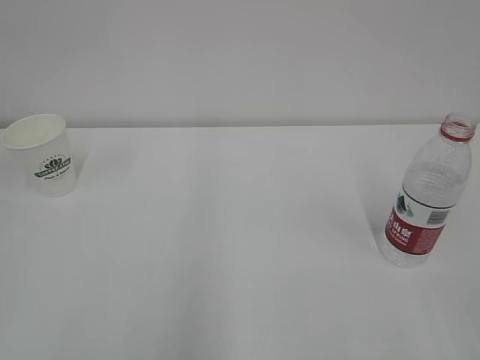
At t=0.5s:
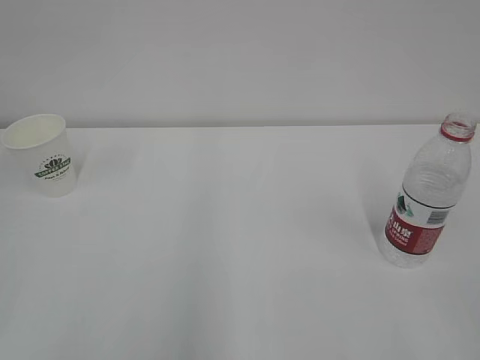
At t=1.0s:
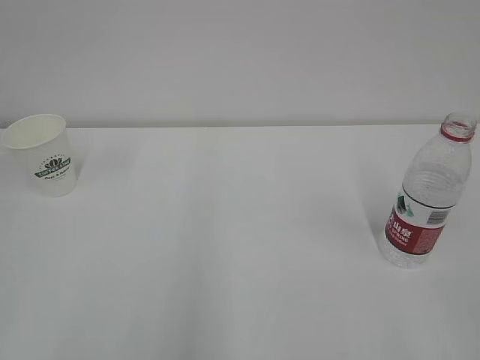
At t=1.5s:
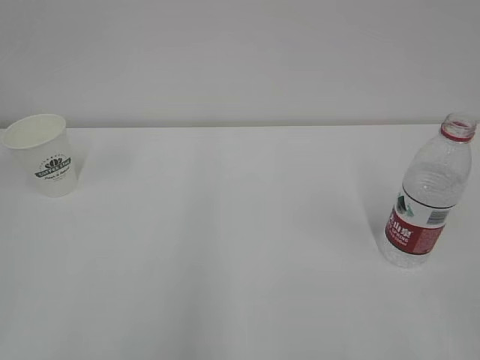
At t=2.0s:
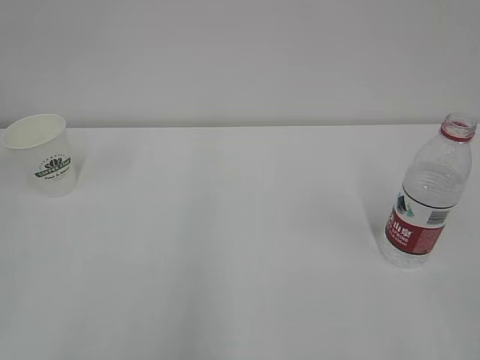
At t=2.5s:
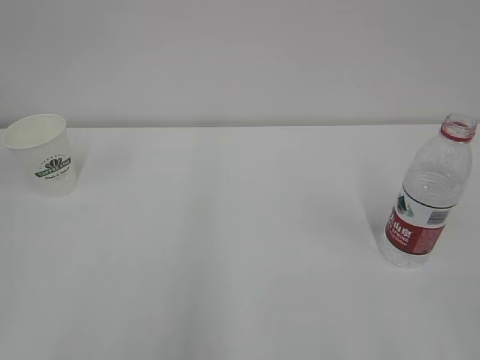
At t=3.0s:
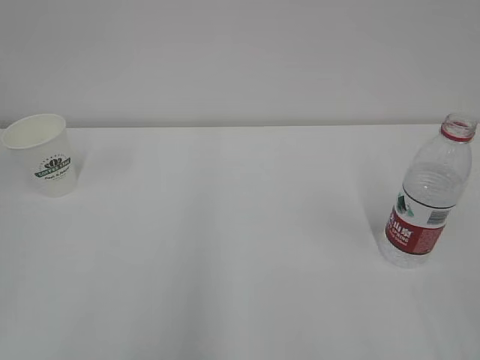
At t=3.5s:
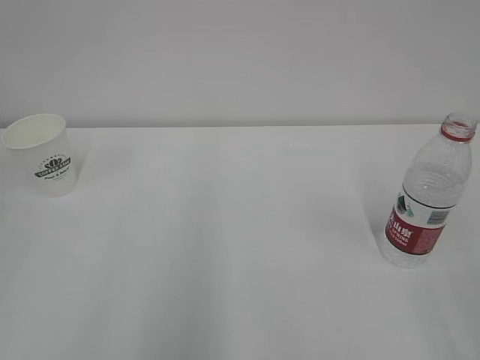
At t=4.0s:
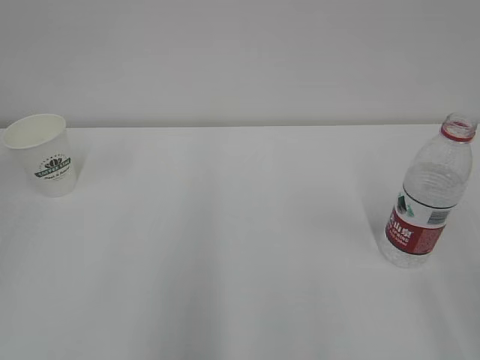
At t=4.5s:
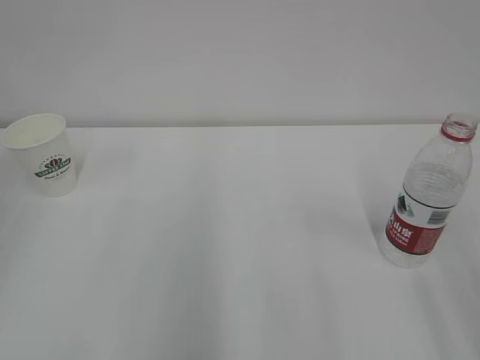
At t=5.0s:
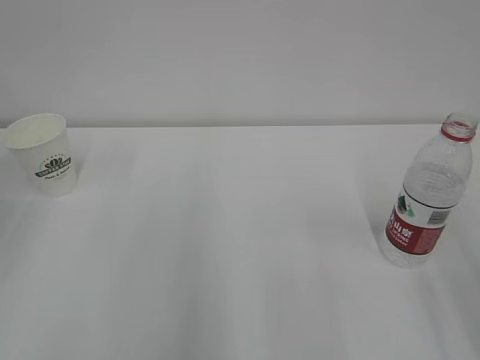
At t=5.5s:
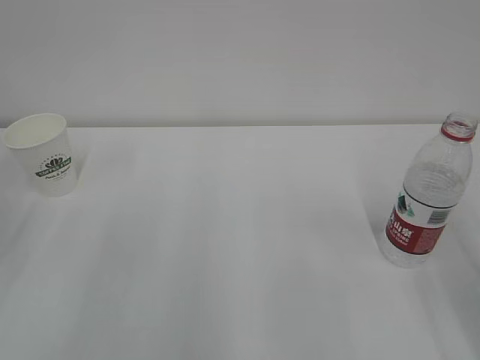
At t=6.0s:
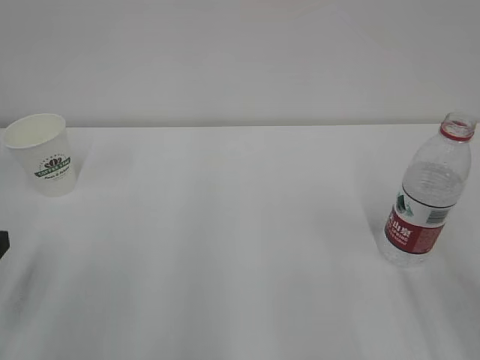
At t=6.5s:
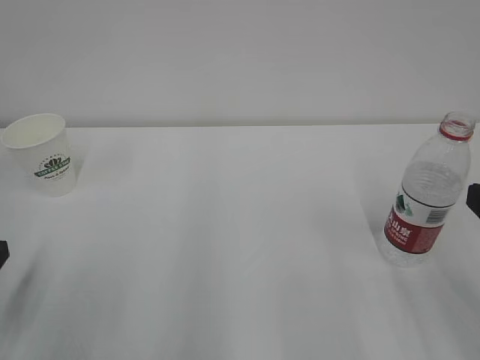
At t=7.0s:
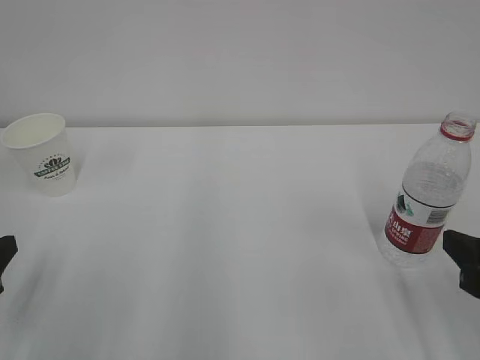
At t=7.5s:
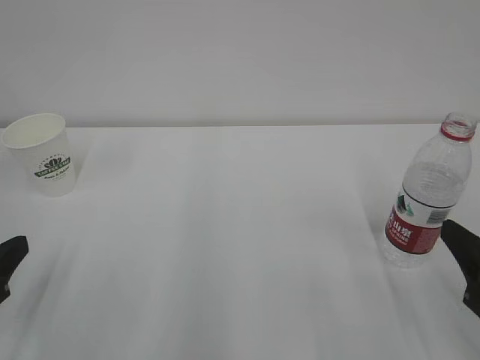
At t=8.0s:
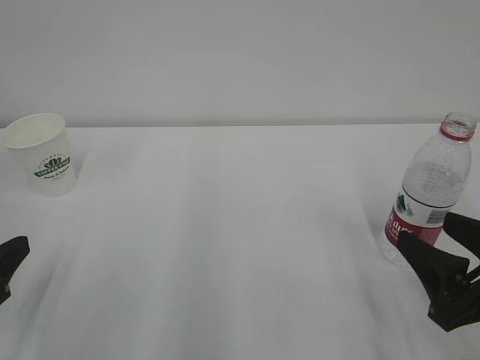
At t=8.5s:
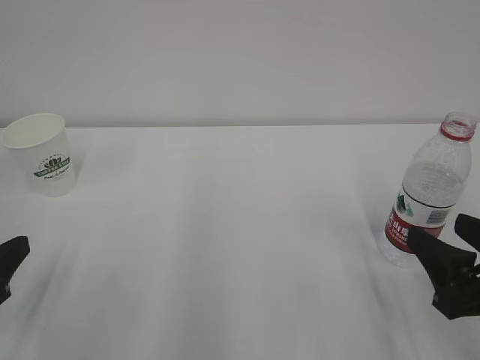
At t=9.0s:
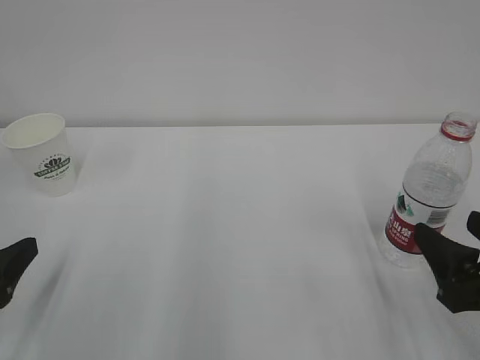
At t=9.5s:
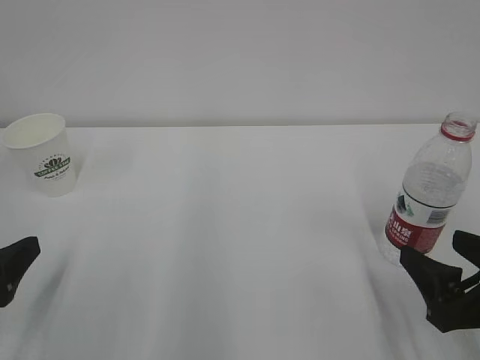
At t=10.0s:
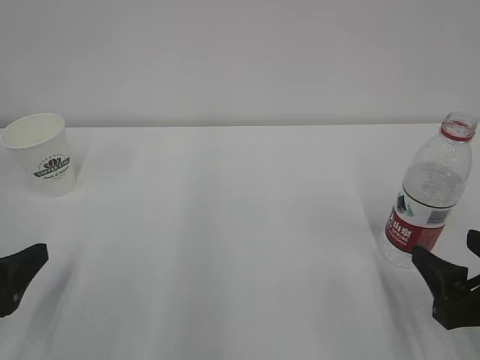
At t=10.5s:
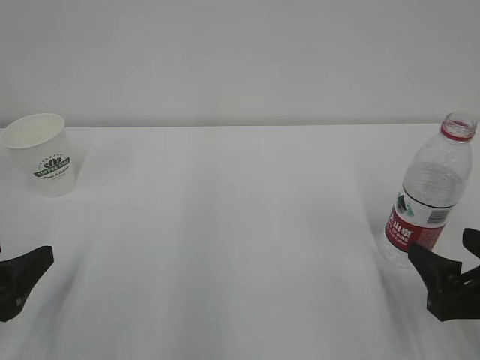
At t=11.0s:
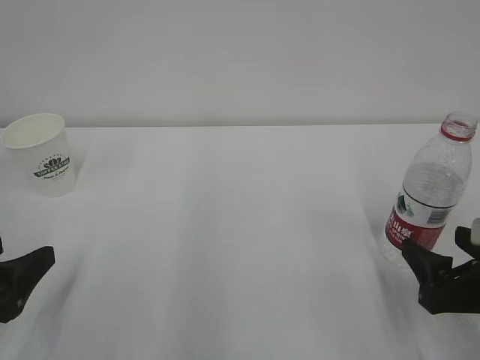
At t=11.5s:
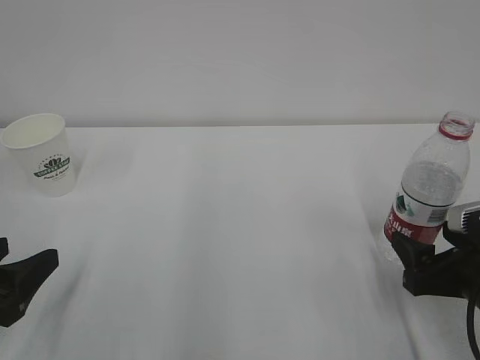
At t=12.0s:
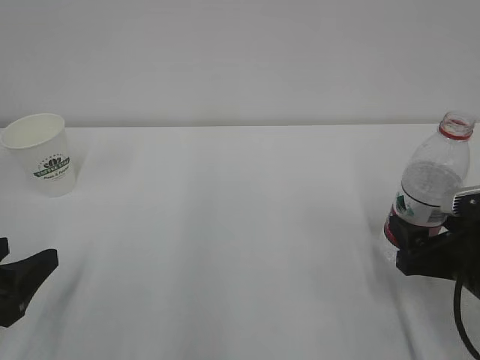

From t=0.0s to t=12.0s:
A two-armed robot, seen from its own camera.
From t=4.0s to t=6.0s: The left gripper is displaced downward and forward by about 20 cm.
From t=6.0s to t=8.0s: The right gripper is displaced downward by about 10 cm.
From t=8.0s to t=10.0s: The left gripper opens up. The right gripper opens its fingers.
From t=10.0s to t=12.0s: The right gripper is displaced forward by about 5 cm.

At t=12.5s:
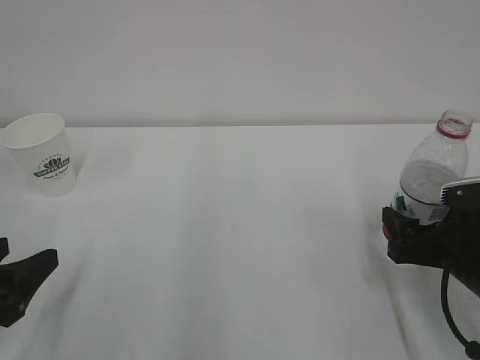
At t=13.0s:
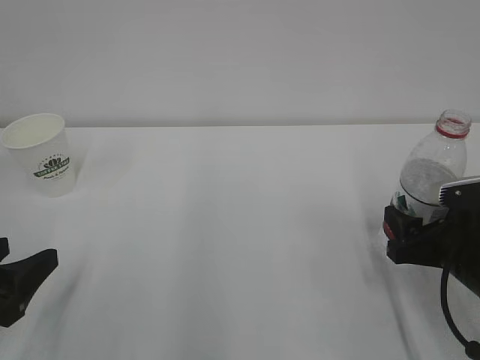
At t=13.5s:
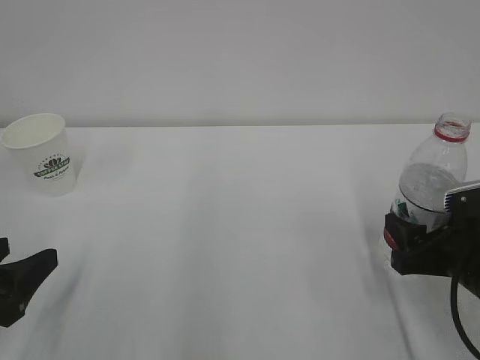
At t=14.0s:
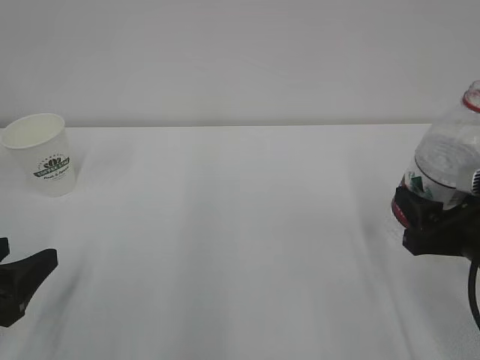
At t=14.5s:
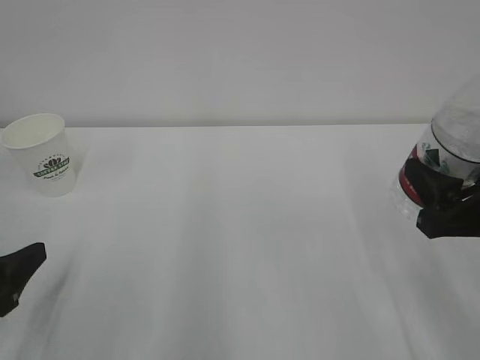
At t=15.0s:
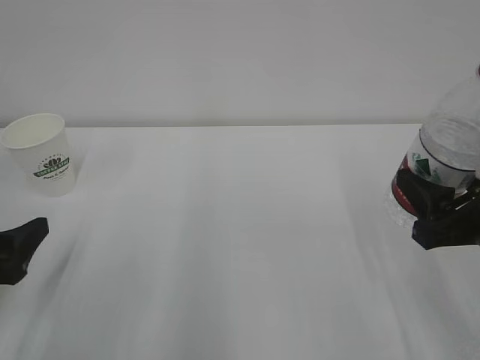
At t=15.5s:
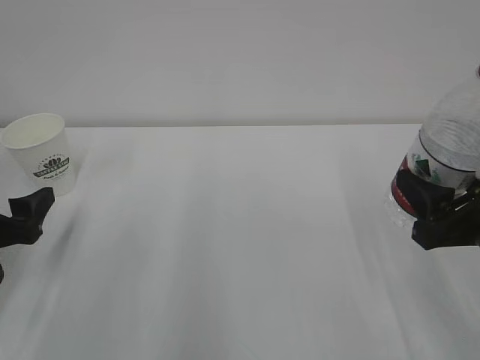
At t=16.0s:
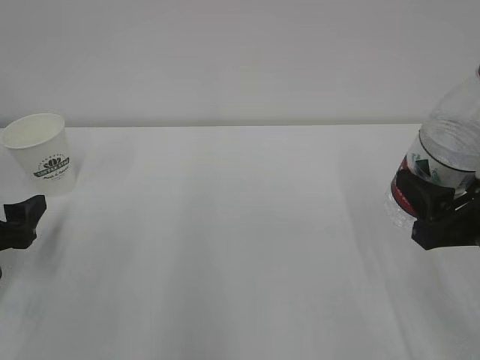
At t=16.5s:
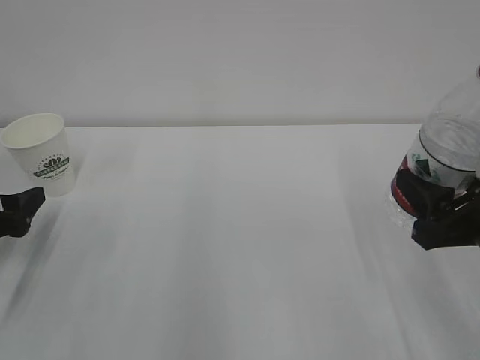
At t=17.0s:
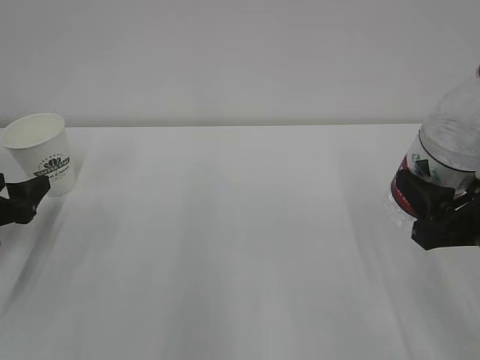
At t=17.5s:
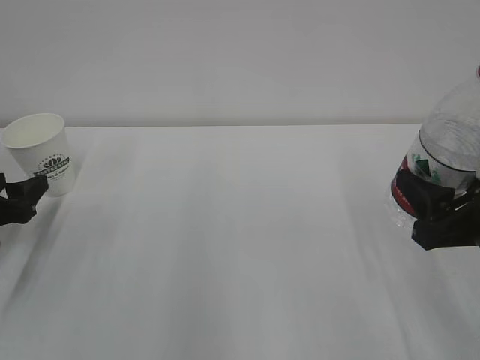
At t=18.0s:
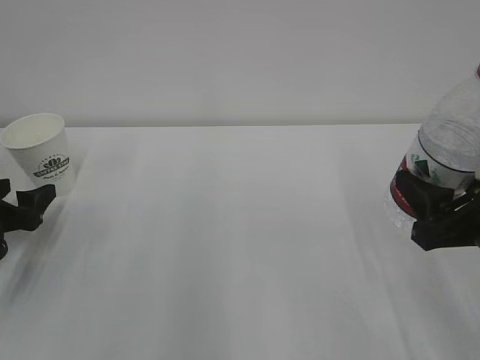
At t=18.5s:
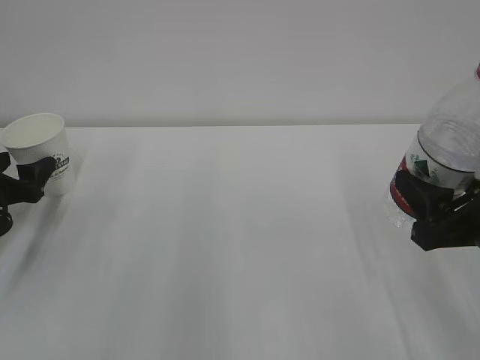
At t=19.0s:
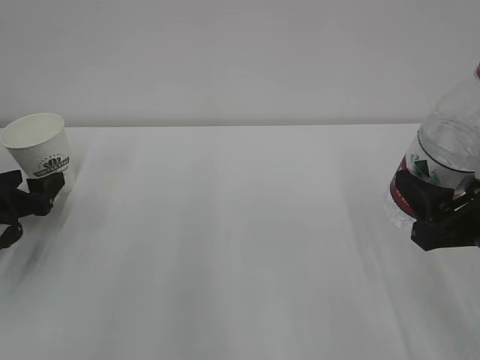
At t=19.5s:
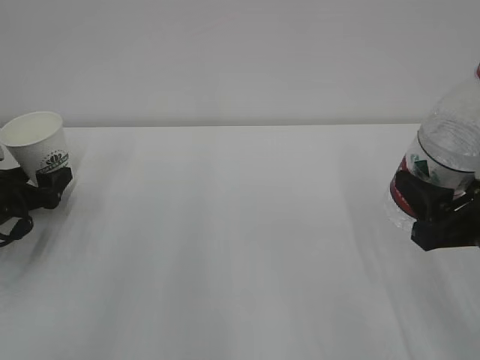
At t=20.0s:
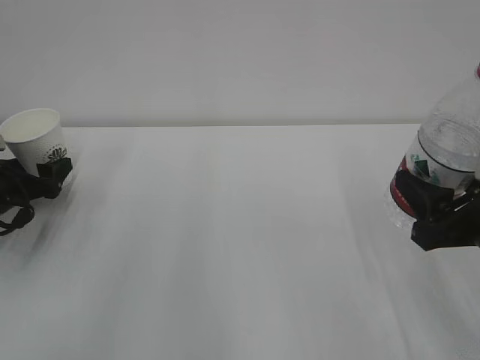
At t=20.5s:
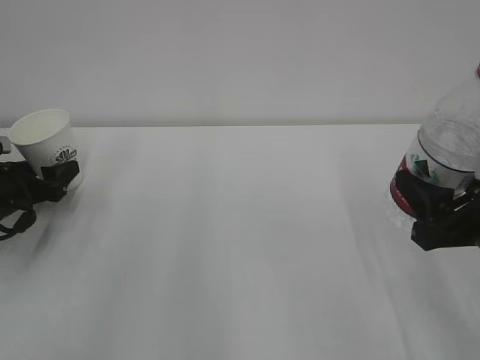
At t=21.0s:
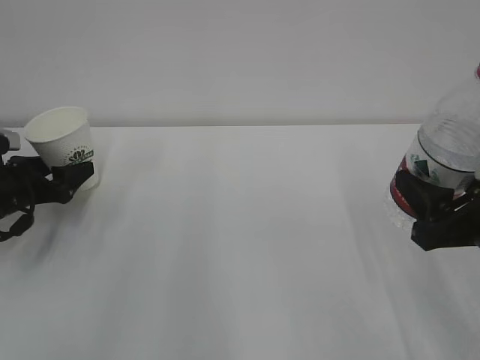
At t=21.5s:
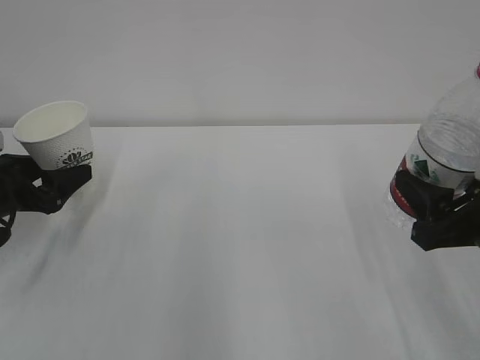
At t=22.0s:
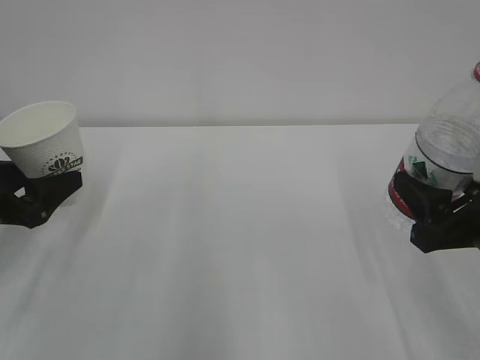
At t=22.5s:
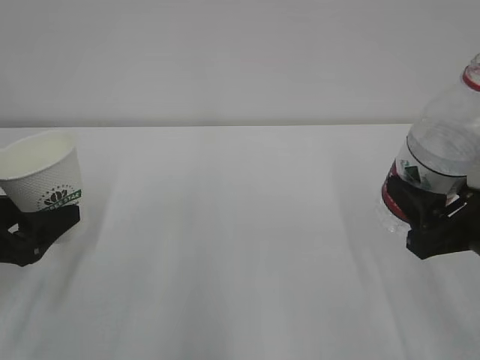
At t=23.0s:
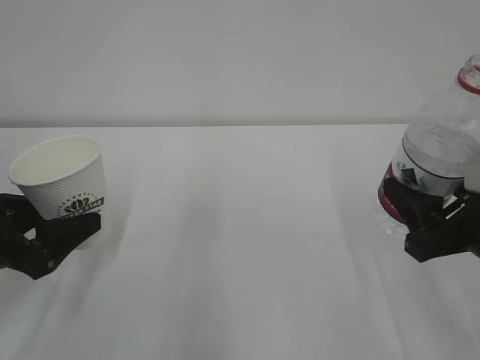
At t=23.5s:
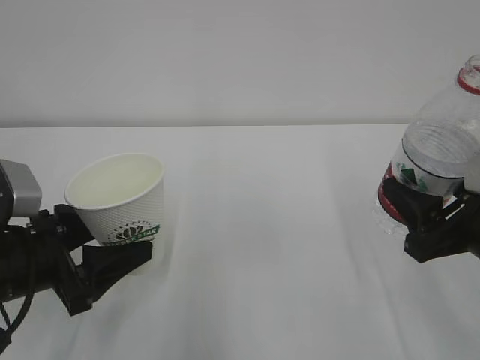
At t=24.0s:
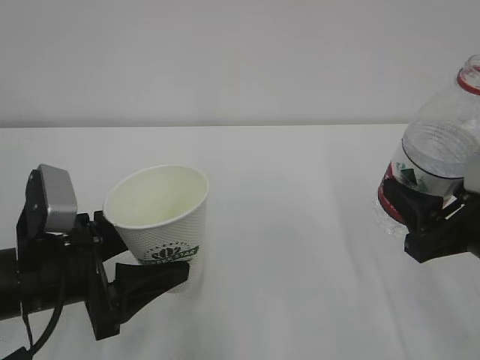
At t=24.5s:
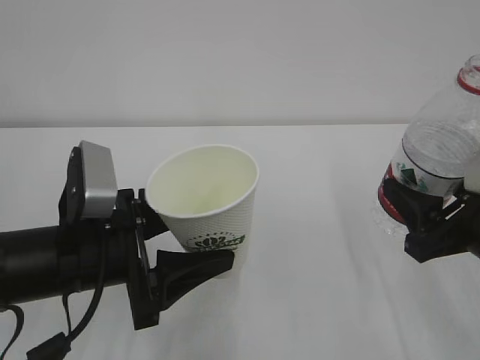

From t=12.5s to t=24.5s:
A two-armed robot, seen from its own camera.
From t=12.5s to t=14.5s: The right gripper heads upward, covering about 10 cm, and closes its fingers.
From t=14.5s to t=16.5s: The left gripper goes about 10 cm forward.
From t=16.5s to t=18.5s: The left gripper is displaced forward by approximately 5 cm.
From t=18.5s to t=20.5s: The left gripper shifts by about 5 cm, and closes its fingers.
From t=20.5s to t=22.5s: The left gripper moves backward and upward, approximately 15 cm.
From t=22.5s to t=24.5s: The left gripper travels to the right by about 15 cm.

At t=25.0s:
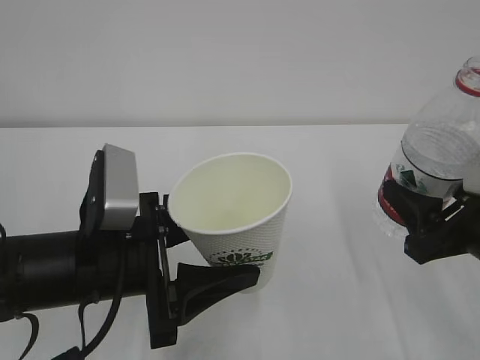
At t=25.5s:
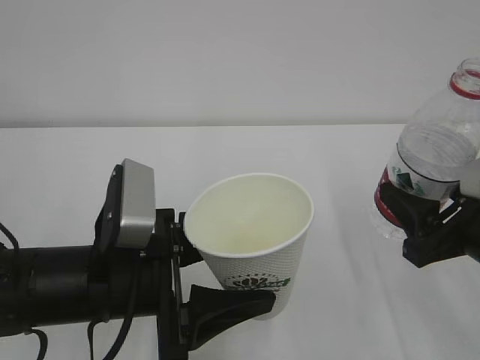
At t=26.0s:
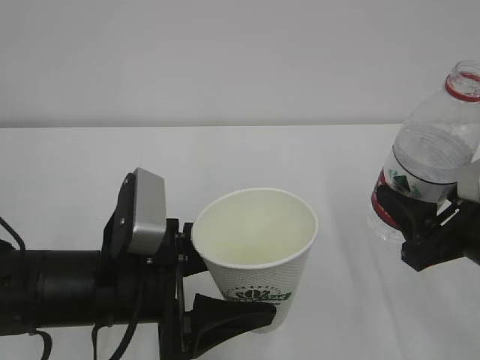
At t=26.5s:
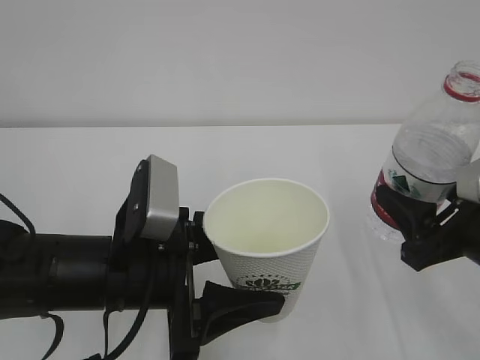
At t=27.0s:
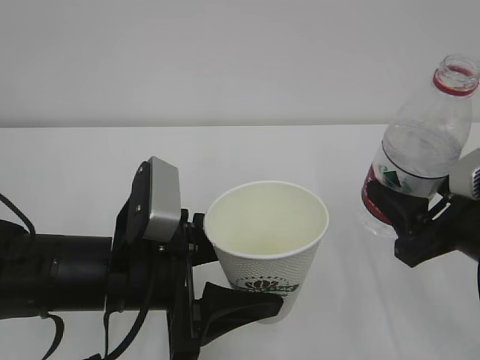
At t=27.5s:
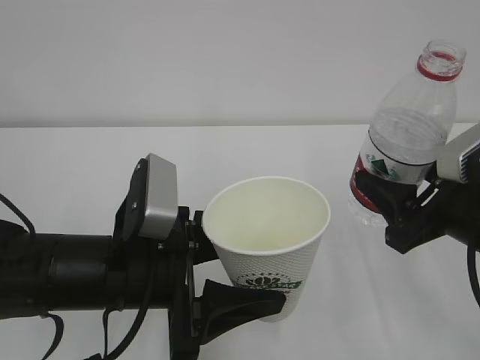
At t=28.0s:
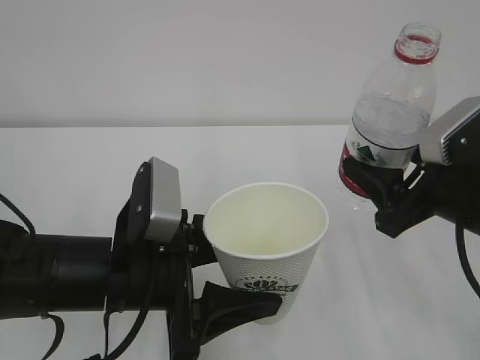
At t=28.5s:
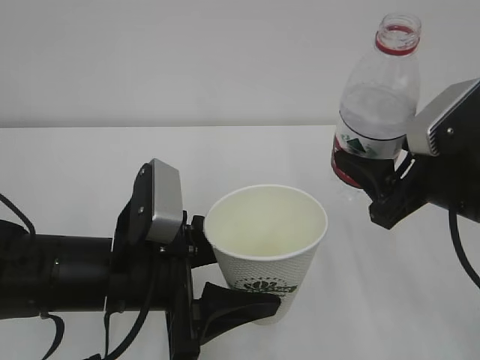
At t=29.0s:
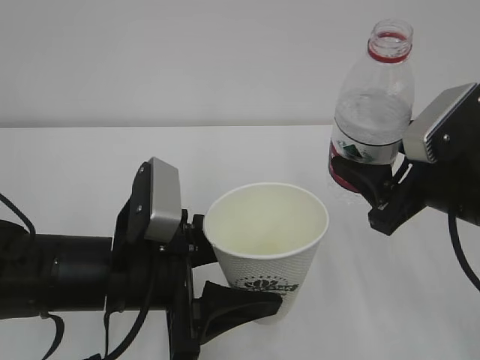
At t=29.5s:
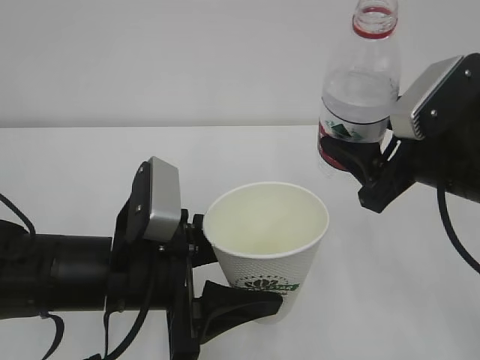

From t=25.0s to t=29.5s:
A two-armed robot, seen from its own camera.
From t=25.0s to t=27.0s: The grippers stay close to where they were, moving slightly.
From t=27.0s to t=29.5s: The right gripper changes place by some 5 cm.
